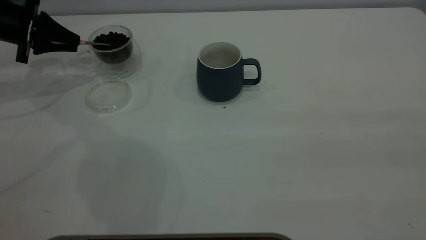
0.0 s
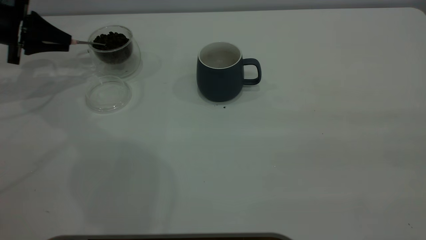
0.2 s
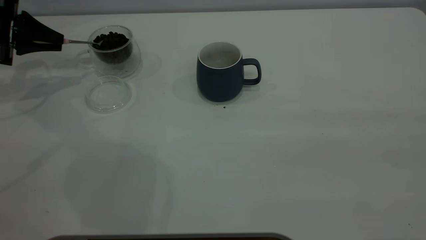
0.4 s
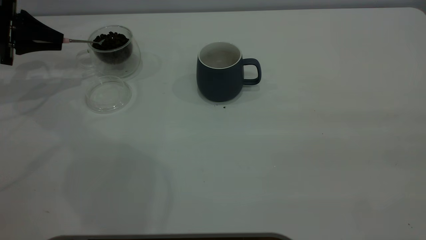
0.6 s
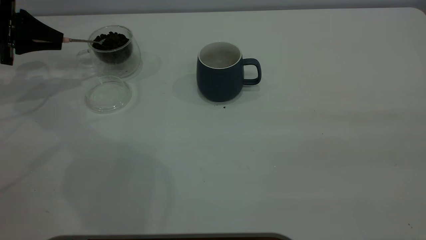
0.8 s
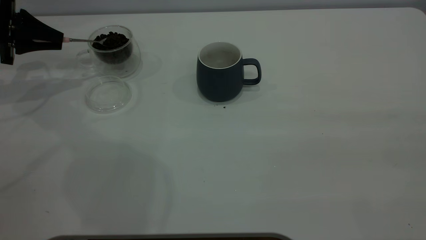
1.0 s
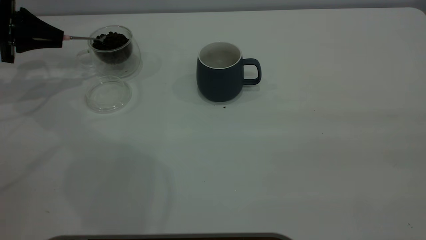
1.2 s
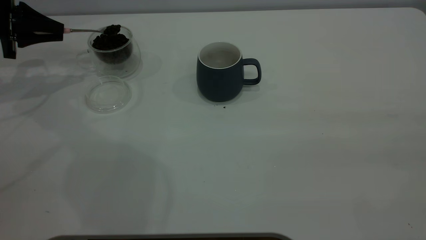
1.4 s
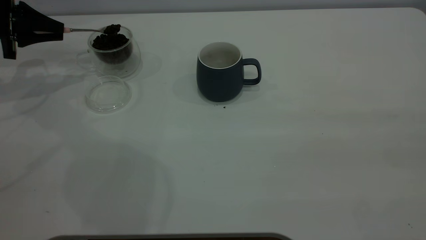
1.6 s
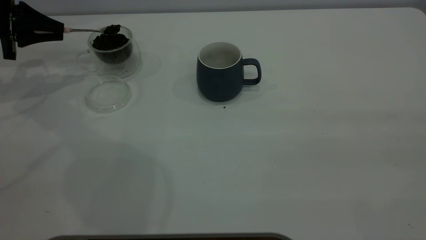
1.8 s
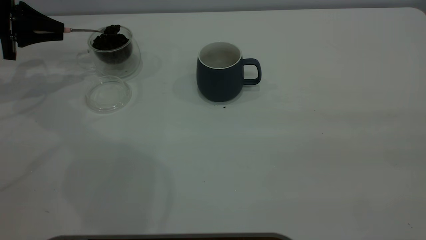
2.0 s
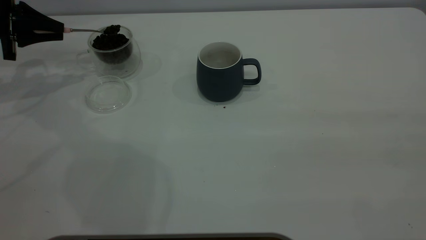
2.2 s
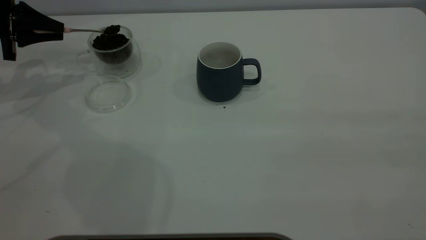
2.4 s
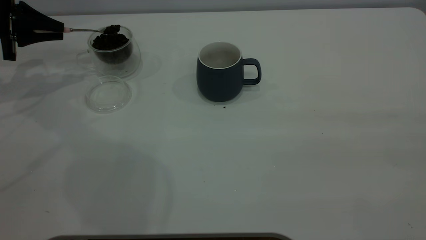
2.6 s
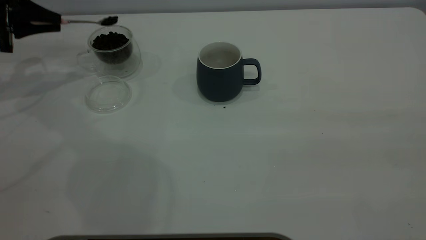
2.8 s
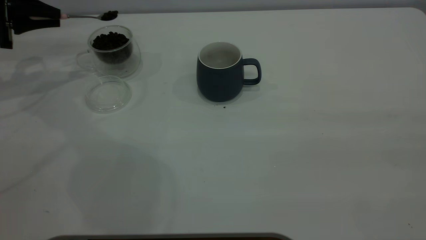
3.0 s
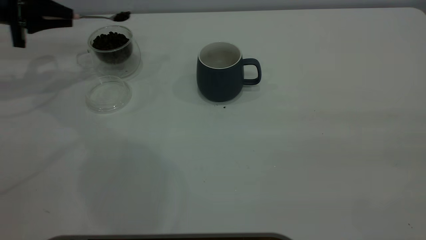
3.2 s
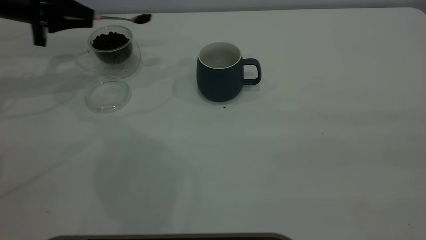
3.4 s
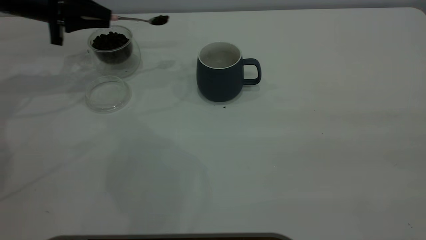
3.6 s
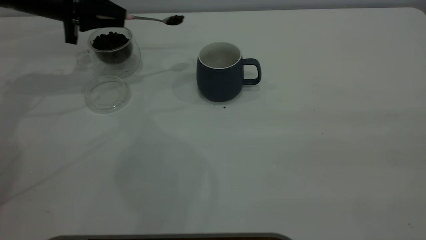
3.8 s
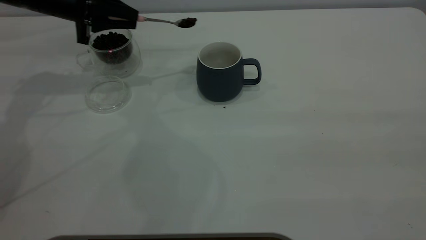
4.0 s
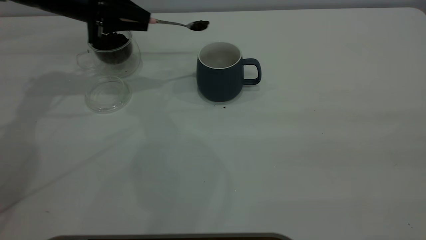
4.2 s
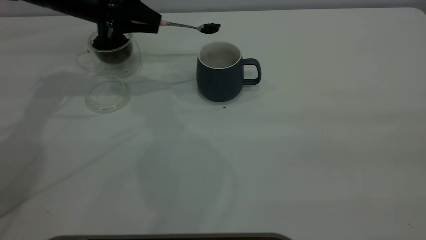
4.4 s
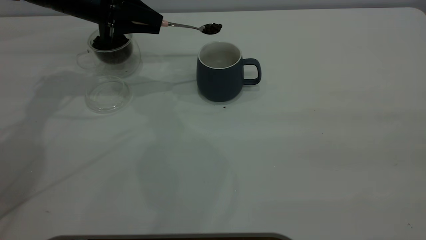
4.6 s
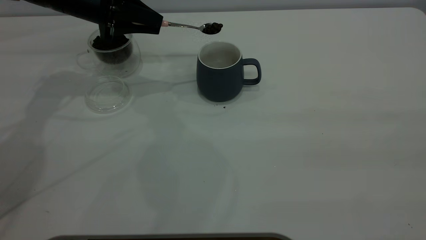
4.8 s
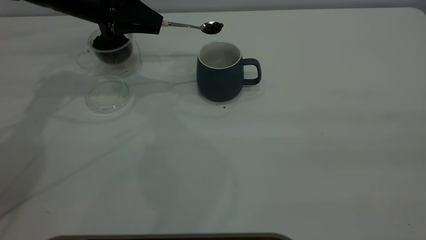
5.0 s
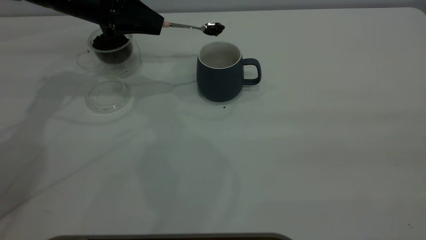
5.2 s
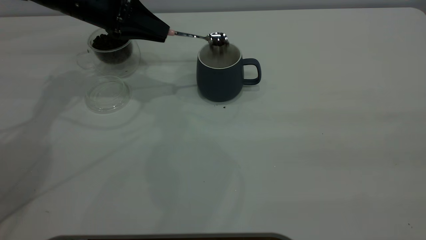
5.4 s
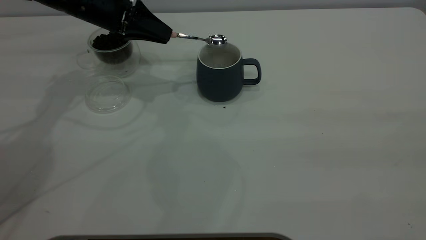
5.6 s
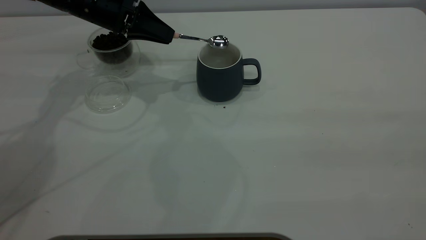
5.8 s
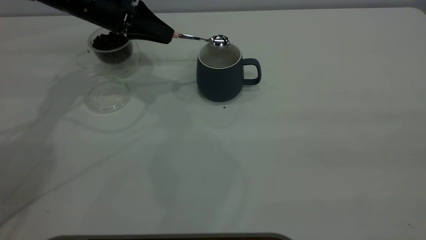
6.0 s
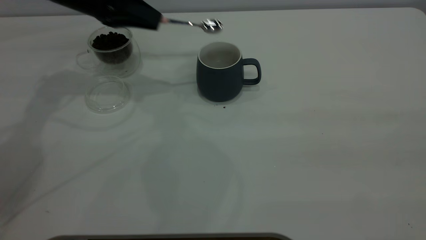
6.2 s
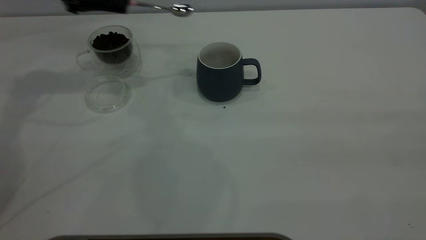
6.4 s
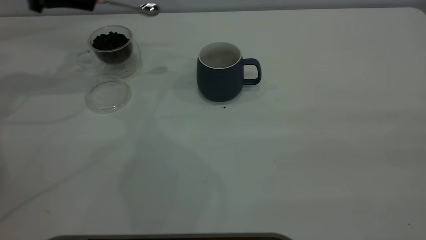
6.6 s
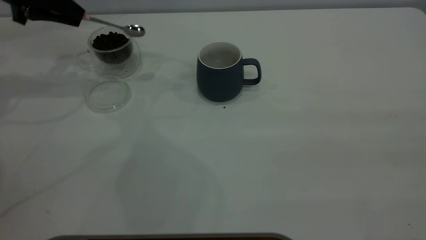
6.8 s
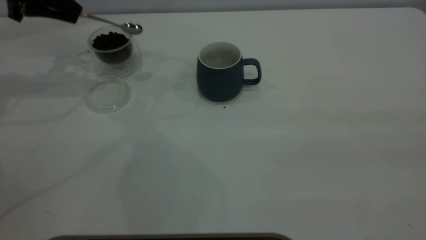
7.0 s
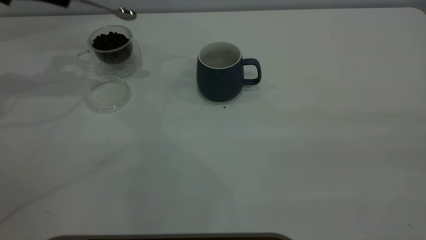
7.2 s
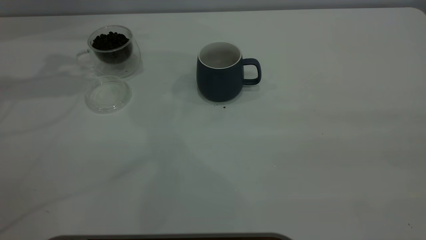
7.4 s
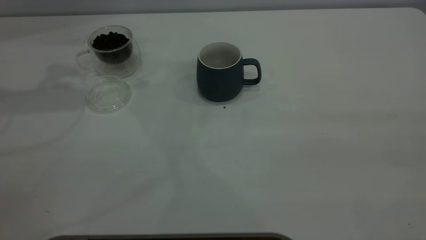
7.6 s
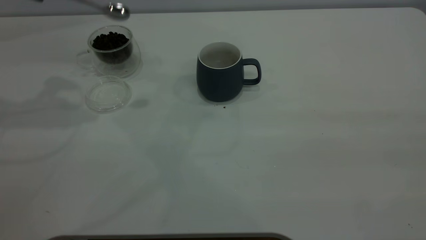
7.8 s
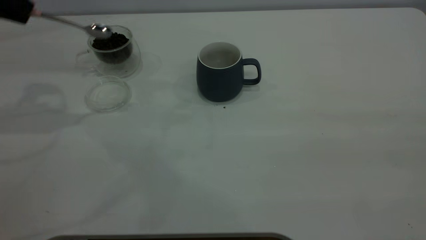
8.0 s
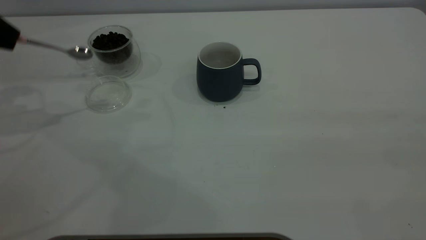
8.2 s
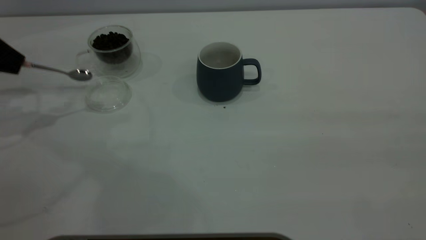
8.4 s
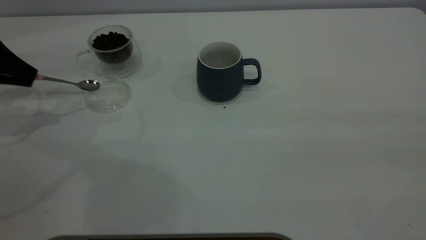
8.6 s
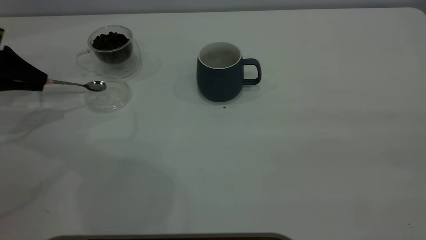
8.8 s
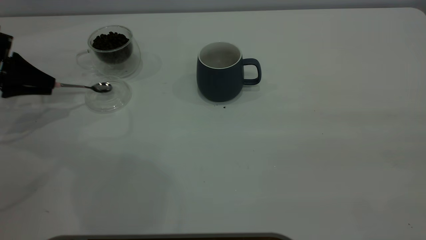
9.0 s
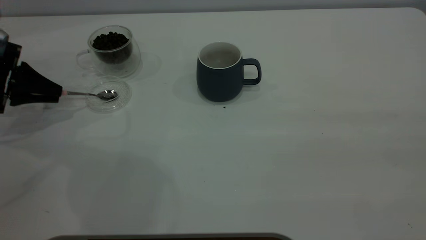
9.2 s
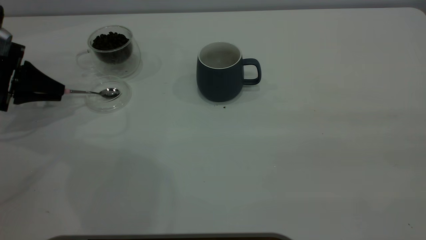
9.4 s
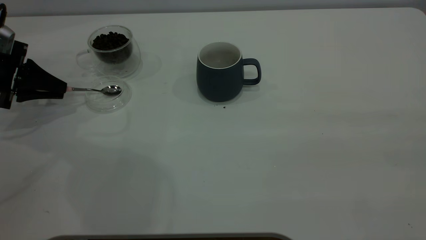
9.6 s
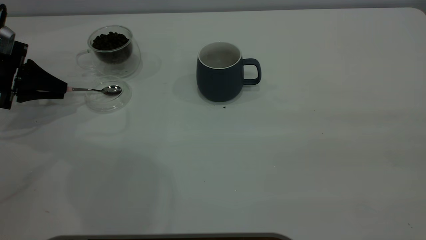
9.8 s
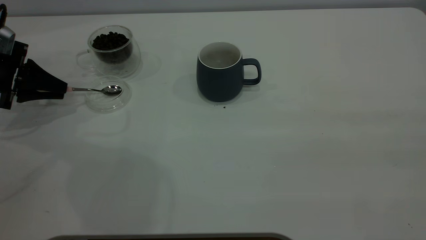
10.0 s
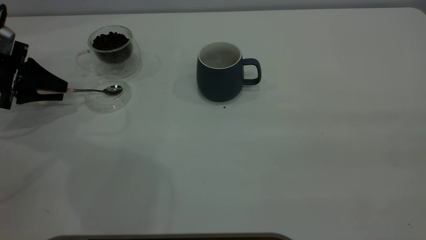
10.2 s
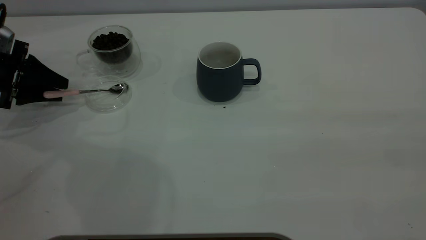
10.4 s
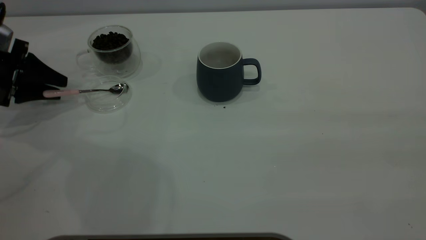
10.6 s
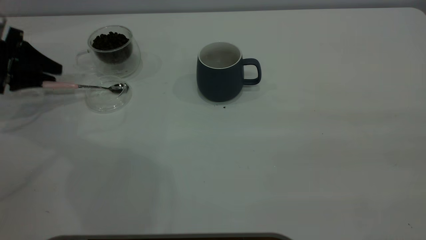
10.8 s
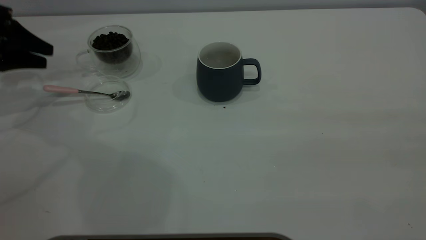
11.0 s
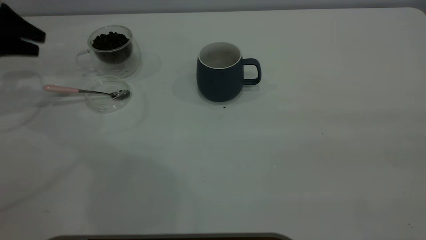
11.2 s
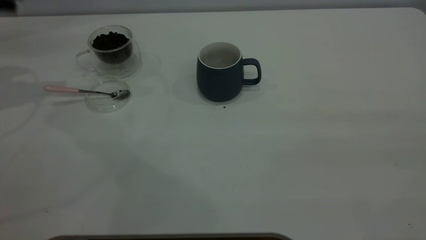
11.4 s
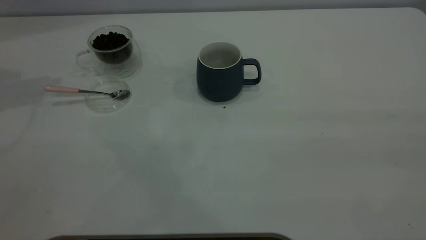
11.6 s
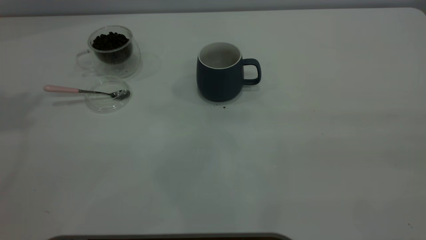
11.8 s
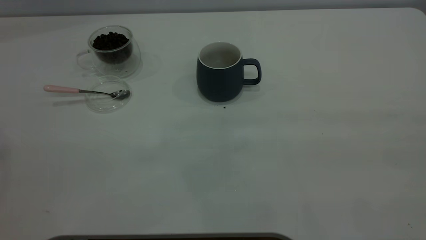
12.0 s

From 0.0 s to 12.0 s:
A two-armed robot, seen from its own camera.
Task of the whole recording: the right gripper place the grey cup in the center of the table, the left gripper take the pink spoon from the cup lid and scoop out the coffee beans from the coffee cup and put them into the grey cup, the left gripper put the spoon back into the cup lid.
Step, from 0.0 s to 6.0 s: Scoop a spoonful of beans into the cup.
Step, from 6.2 s to 10.8 s: Place the spoon back in its original place.
From 0.0 s to 3.0 s: There are only small adjustments of the grippers.
From 3.0 s to 4.4 s: The left gripper heads to the right, covering roughly 15 cm.
From 6.0 s to 7.6 s: The left gripper shifts approximately 20 cm upward and to the left.
From 7.6 s to 9.0 s: The left gripper heads downward, covering approximately 20 cm.
From 9.0 s to 10.4 s: The left gripper opens up.
From 10.4 s to 12.0 s: The left gripper is displaced upward by some 40 cm.
